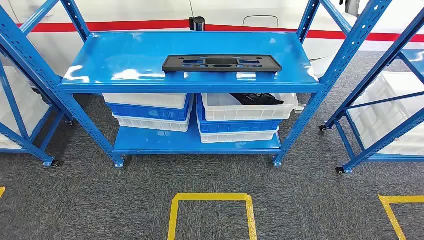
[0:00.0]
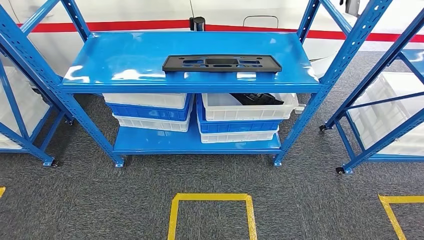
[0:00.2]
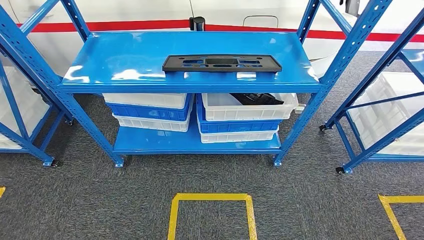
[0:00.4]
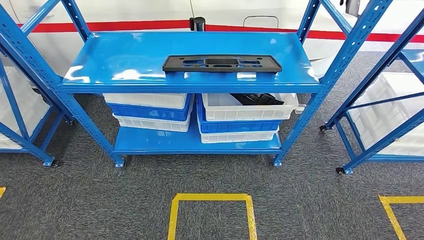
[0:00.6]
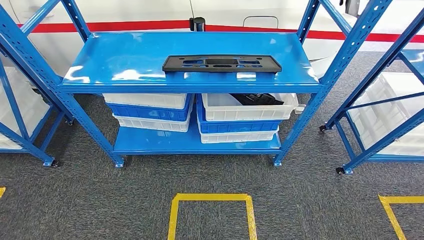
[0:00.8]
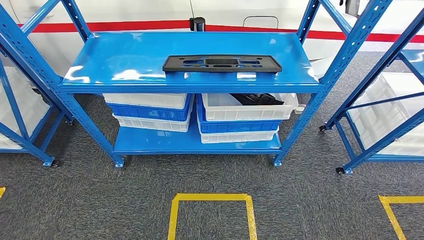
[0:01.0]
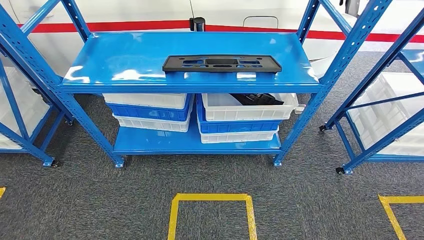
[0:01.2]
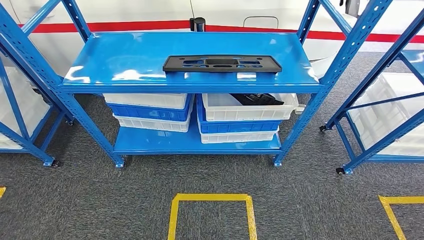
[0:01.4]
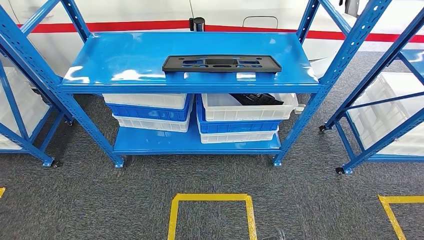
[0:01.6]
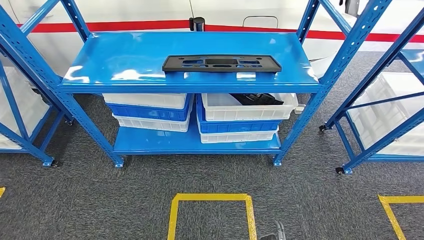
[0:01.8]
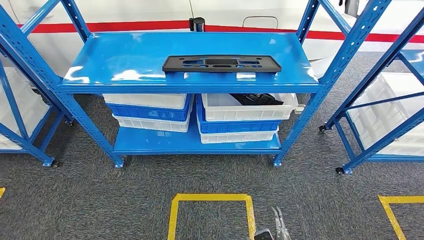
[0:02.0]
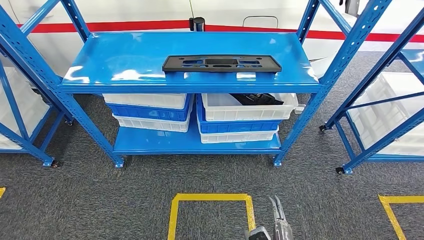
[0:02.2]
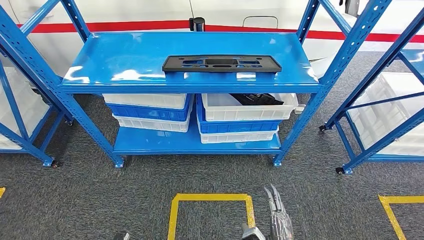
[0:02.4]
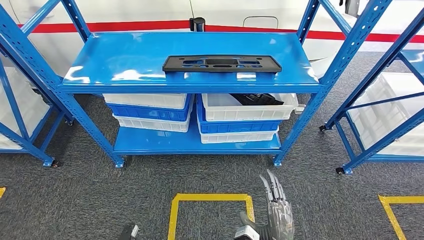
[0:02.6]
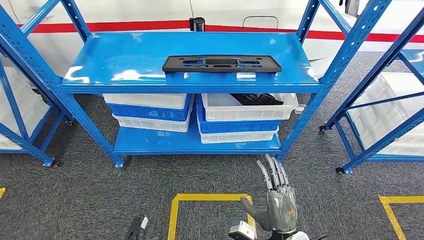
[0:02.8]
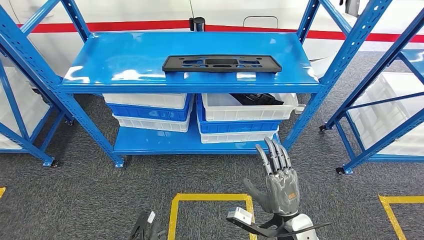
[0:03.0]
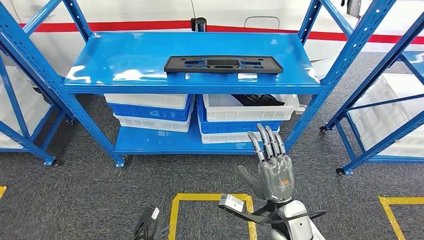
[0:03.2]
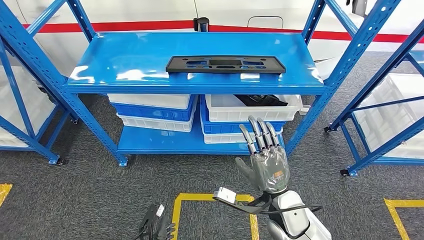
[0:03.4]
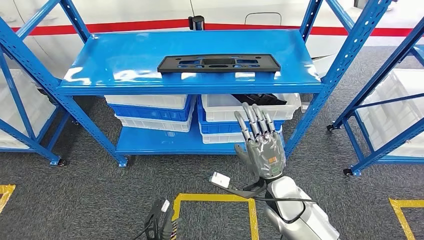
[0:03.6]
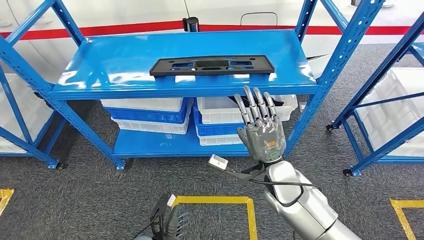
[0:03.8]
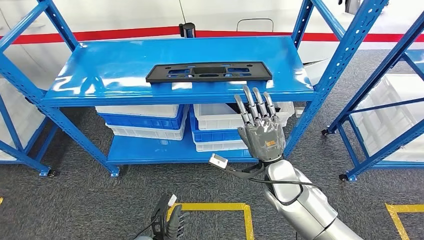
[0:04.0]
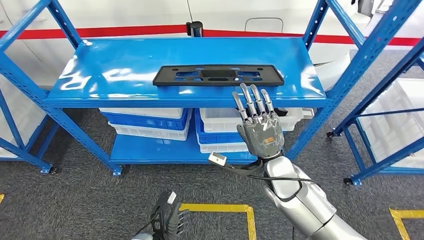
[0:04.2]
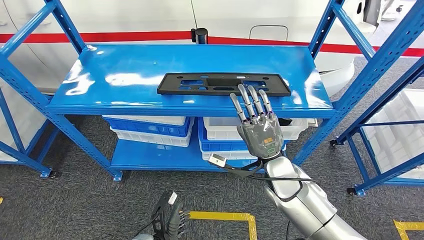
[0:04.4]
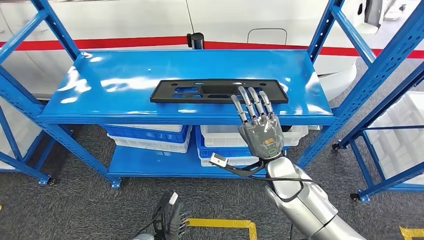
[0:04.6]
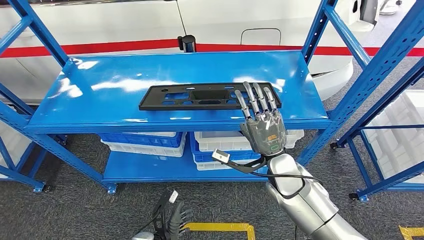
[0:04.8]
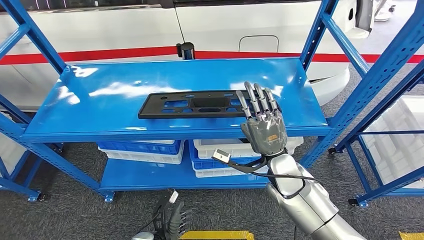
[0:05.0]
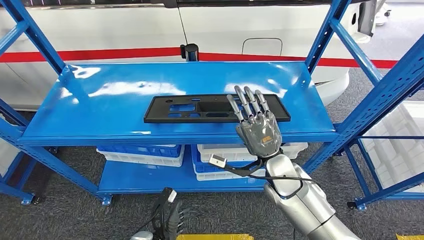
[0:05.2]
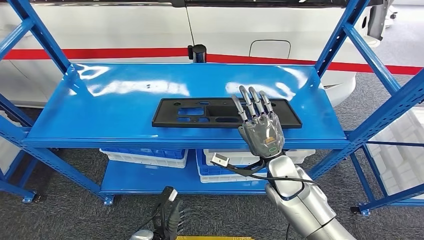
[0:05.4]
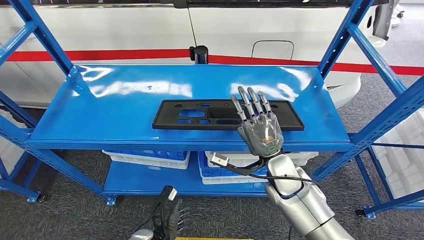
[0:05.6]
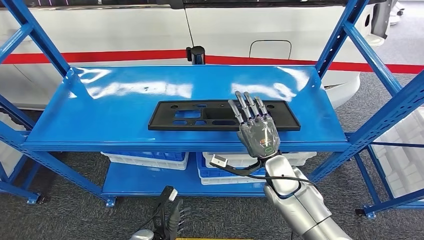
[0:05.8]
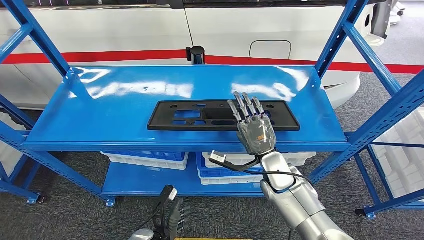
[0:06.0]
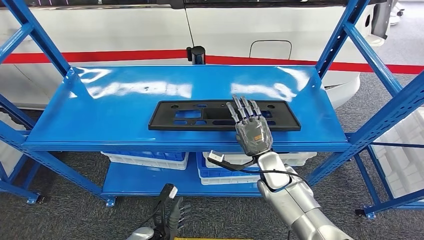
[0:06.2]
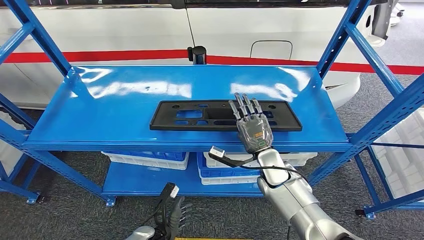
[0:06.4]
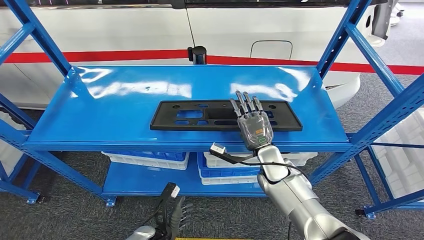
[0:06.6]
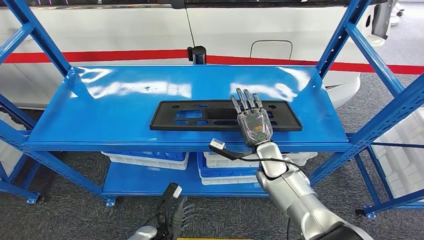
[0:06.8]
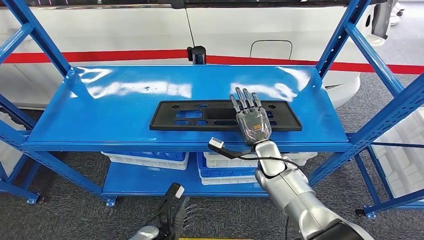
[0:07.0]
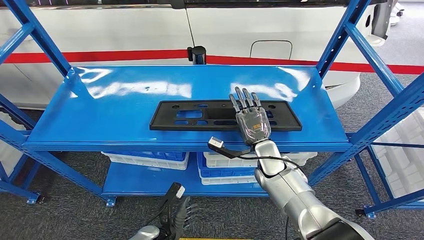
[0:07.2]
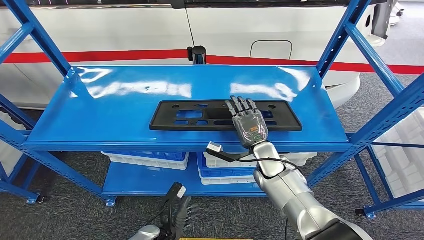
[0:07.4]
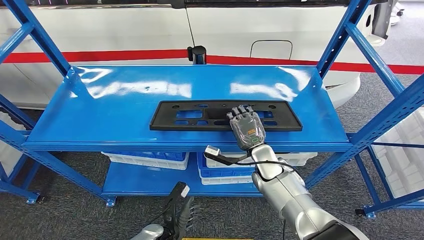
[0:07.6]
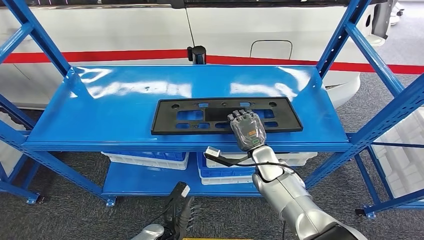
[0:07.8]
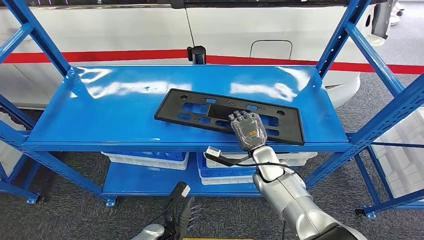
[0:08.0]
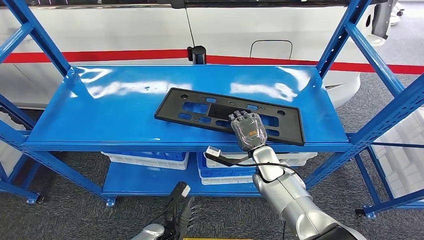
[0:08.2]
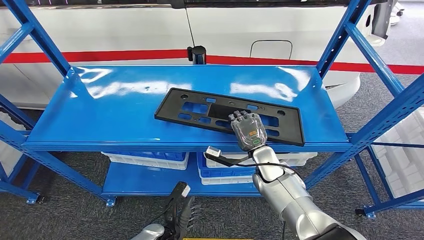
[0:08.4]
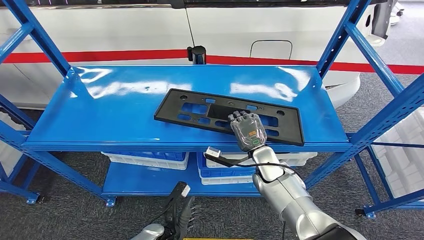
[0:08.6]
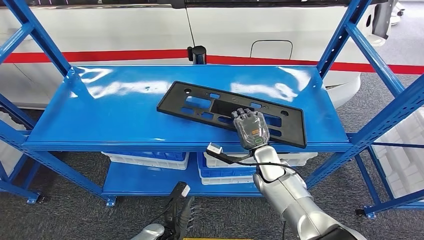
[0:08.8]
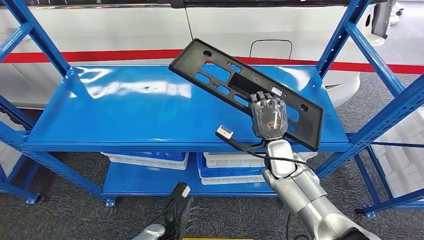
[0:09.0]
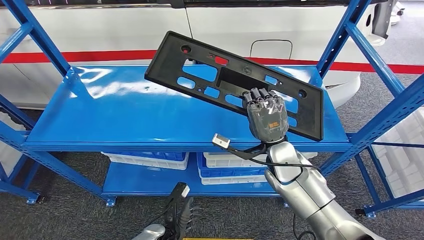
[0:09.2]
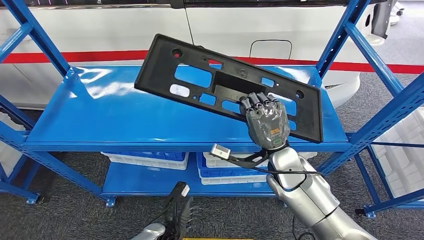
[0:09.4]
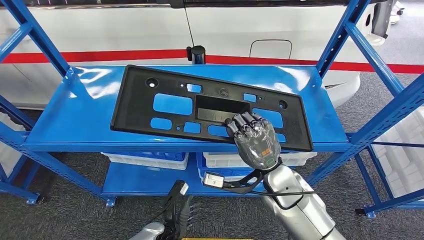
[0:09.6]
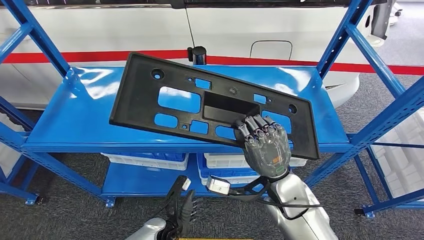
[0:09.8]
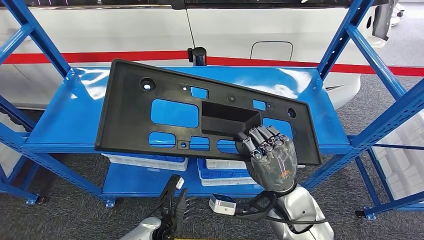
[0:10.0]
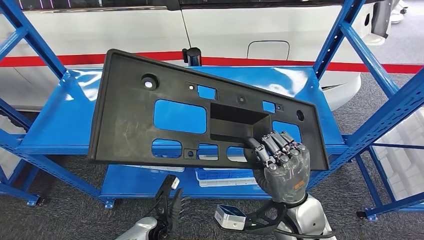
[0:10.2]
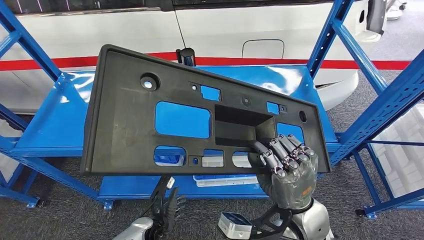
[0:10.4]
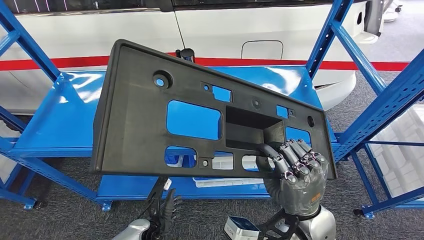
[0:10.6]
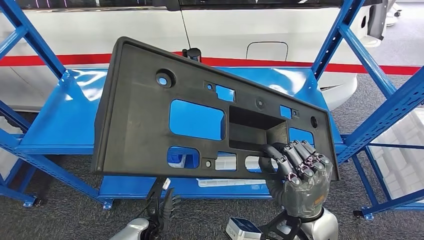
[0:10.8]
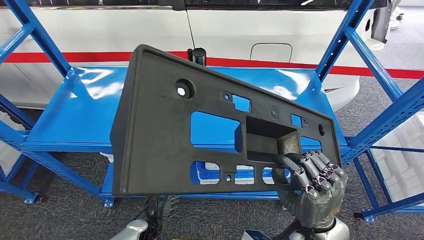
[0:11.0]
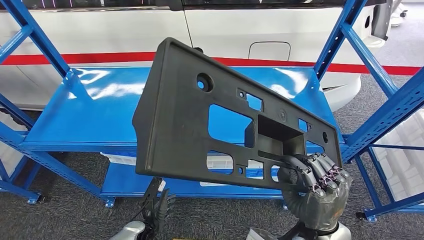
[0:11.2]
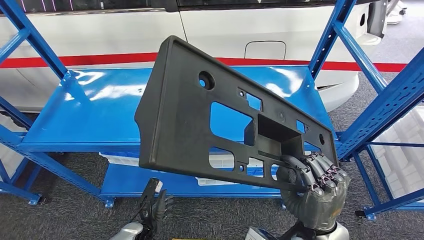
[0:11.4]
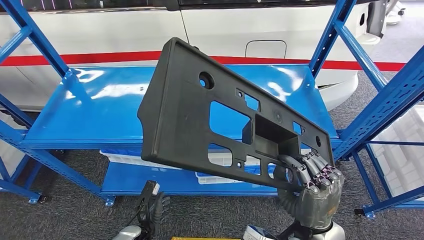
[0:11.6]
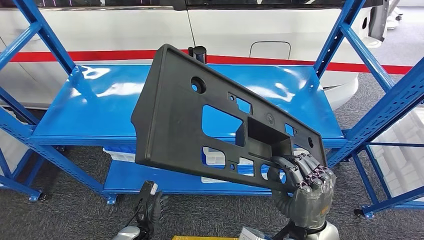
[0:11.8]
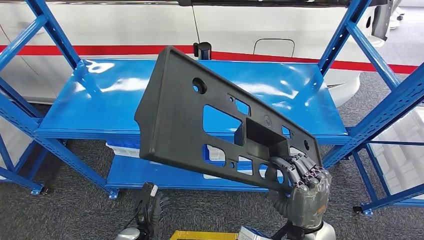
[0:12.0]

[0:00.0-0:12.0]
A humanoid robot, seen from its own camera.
Step, 0:00.0 to 0:09.6: Pick up the large material from the shelf.
0:01.6 to 0:03.0: The right hand goes approximately 20 cm upward and forward. Meanwhile the left hand shifts about 20 cm to the right and forward.
0:06.0 to 0:09.0: The hands stay close to where they were, moving slightly.

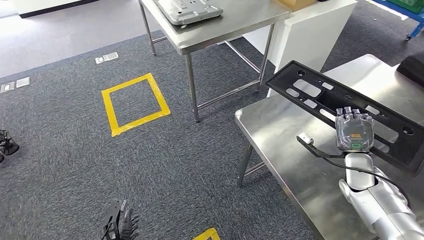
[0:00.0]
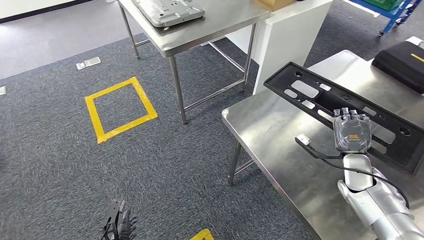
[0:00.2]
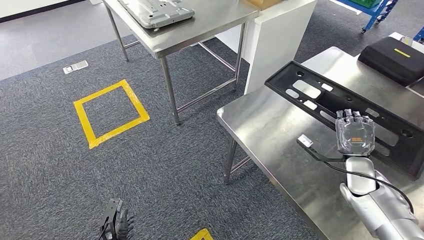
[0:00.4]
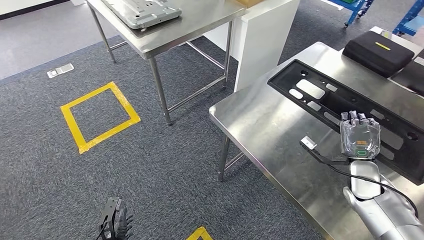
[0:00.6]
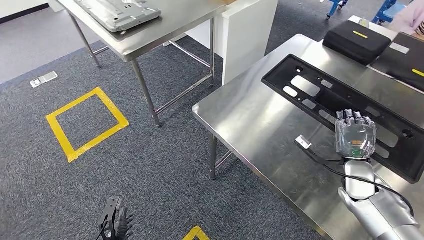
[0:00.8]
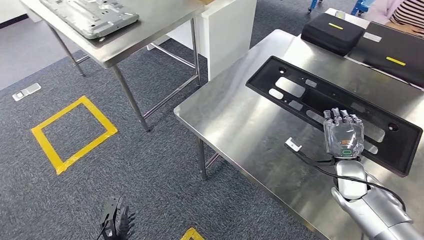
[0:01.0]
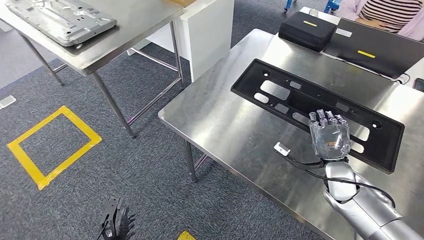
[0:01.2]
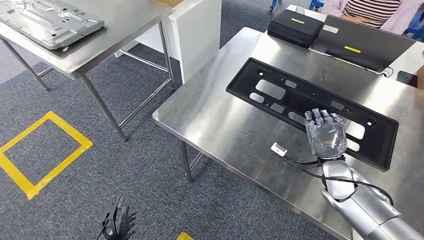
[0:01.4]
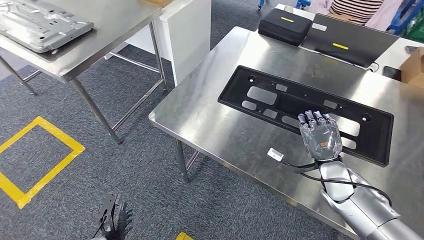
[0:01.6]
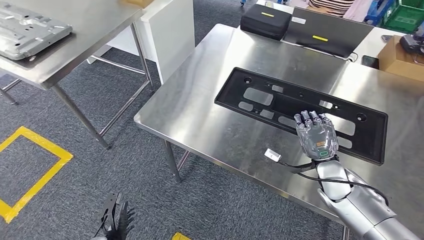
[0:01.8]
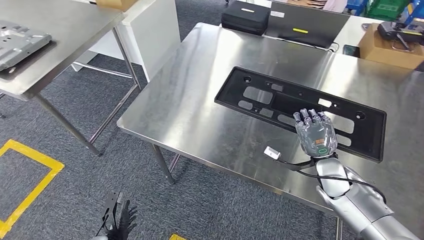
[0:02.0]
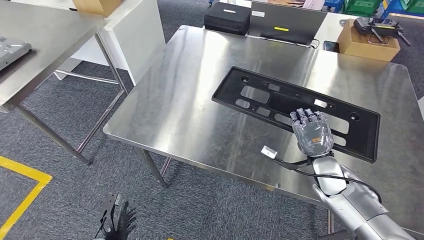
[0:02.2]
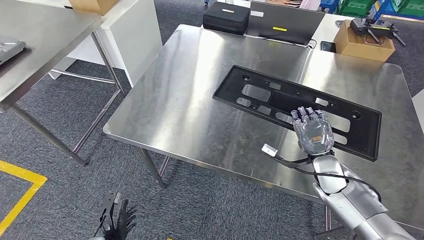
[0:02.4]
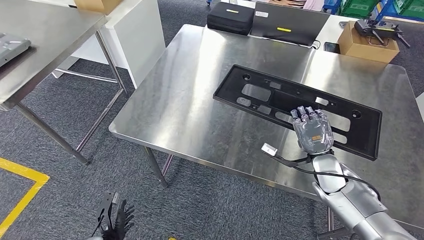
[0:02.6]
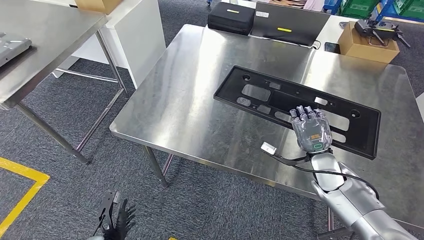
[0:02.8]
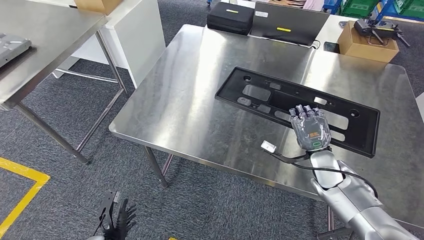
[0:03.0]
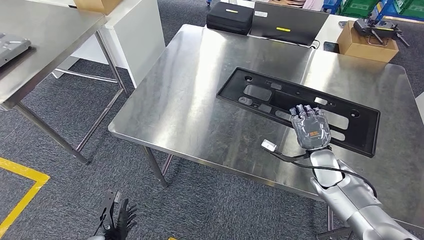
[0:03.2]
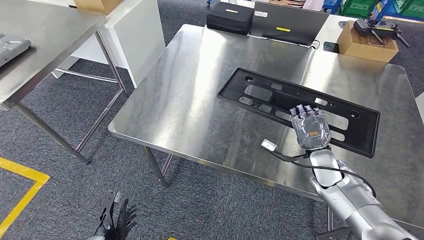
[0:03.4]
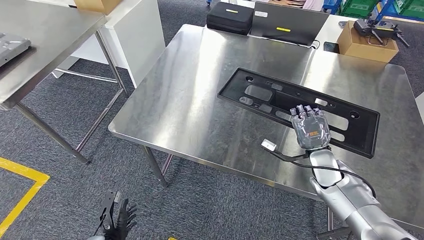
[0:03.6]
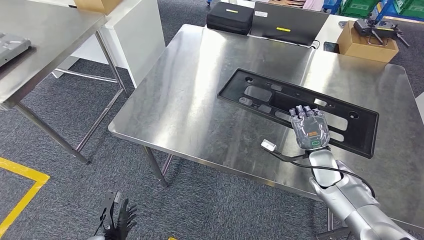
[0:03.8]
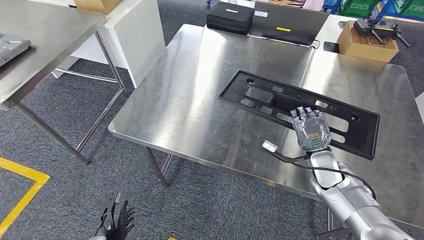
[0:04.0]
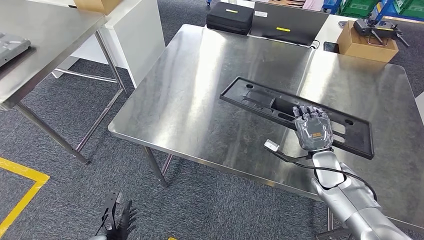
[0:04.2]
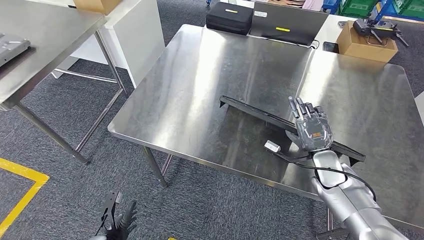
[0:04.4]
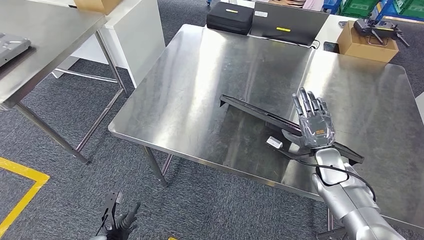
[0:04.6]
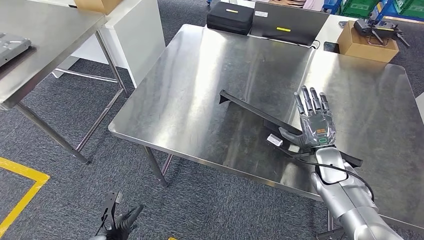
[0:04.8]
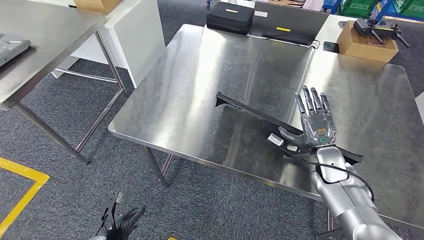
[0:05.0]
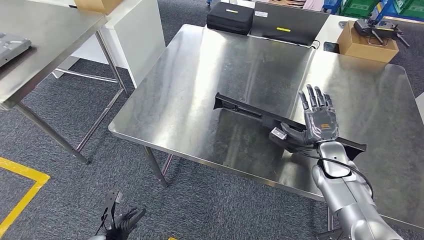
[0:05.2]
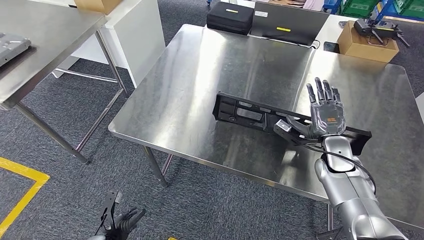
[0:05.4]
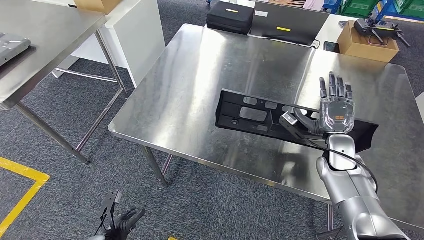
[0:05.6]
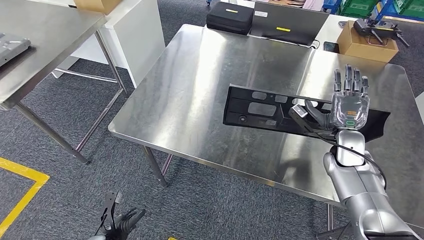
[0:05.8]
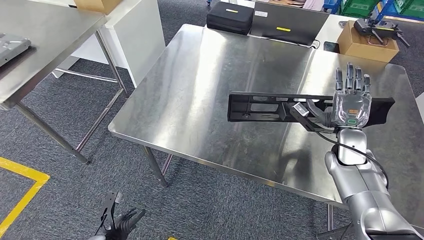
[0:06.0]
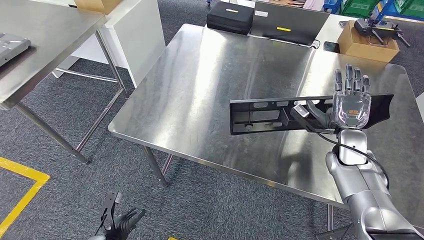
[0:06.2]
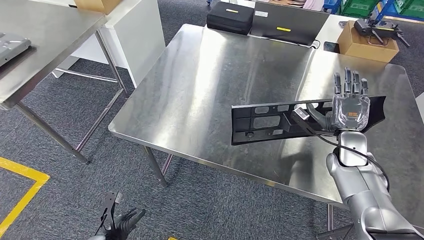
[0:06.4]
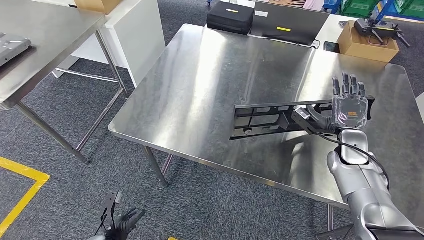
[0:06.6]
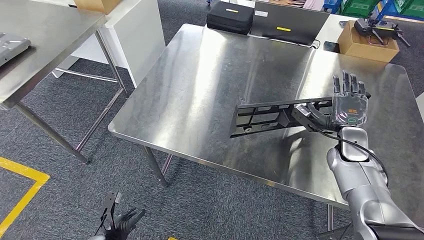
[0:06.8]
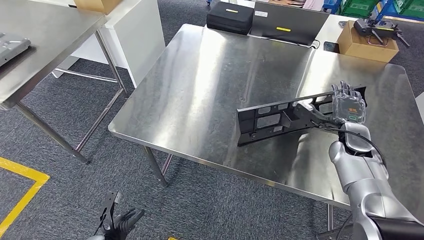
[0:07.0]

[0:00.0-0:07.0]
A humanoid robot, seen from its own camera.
0:02.8 to 0:04.2: The hands make only small movements.
0:04.2 to 0:05.6: The right hand shifts by about 5 cm.
0:05.6 to 0:07.0: The right hand moves some 5 cm.
